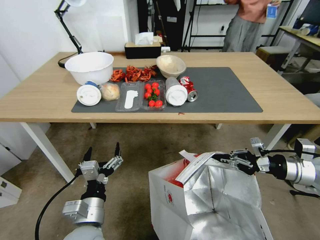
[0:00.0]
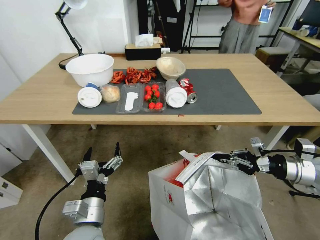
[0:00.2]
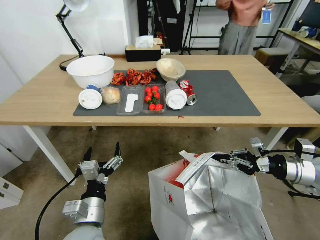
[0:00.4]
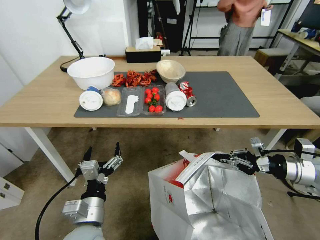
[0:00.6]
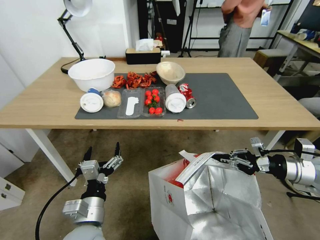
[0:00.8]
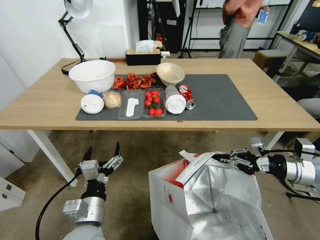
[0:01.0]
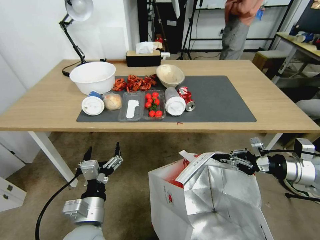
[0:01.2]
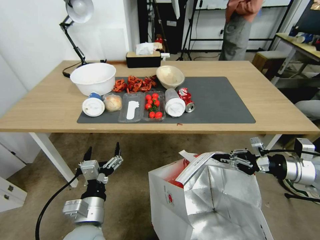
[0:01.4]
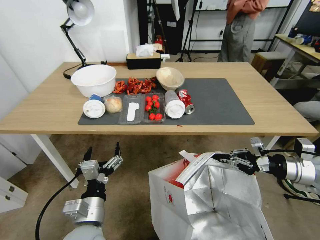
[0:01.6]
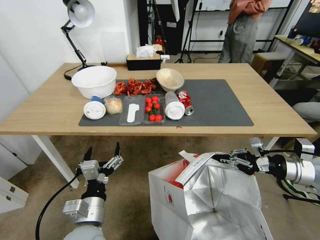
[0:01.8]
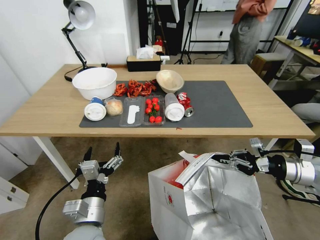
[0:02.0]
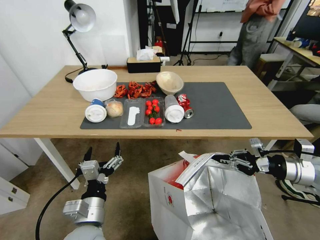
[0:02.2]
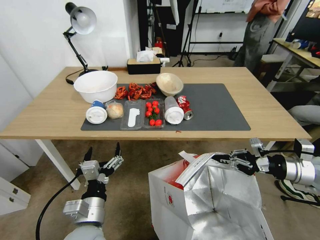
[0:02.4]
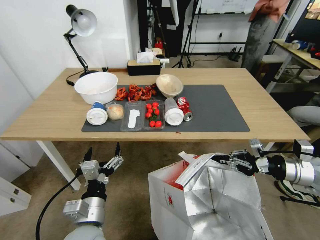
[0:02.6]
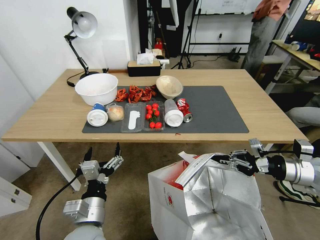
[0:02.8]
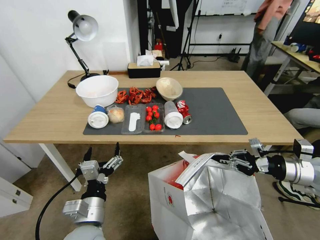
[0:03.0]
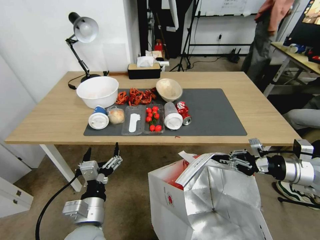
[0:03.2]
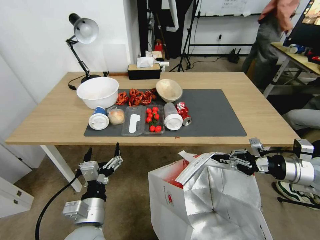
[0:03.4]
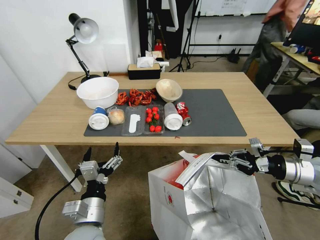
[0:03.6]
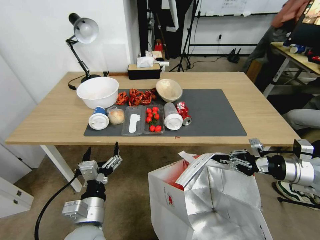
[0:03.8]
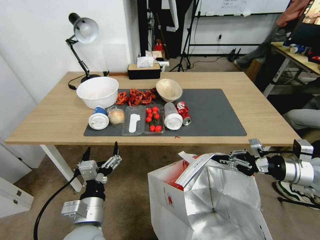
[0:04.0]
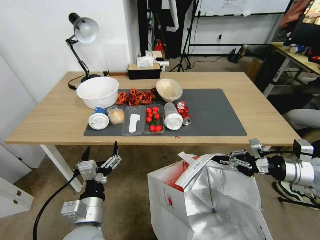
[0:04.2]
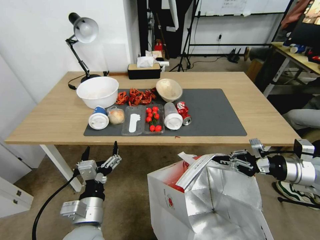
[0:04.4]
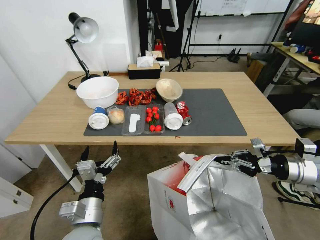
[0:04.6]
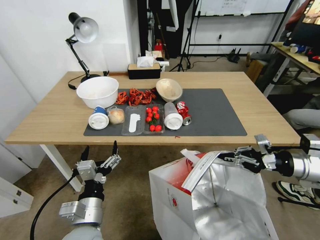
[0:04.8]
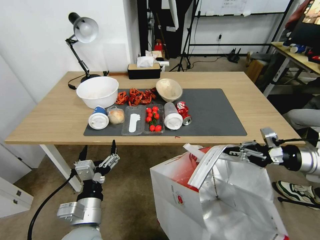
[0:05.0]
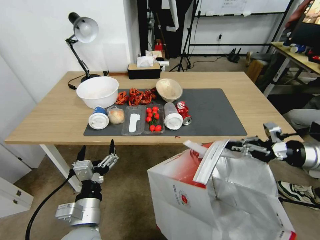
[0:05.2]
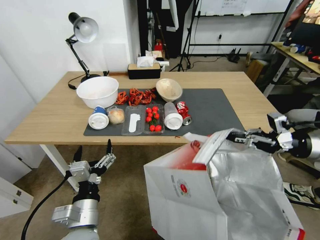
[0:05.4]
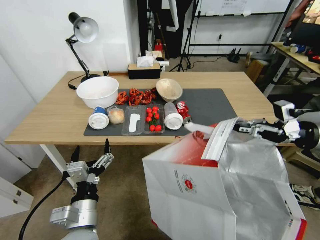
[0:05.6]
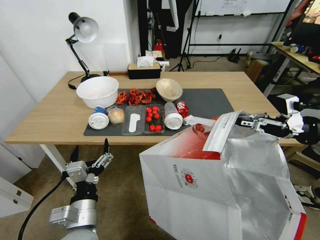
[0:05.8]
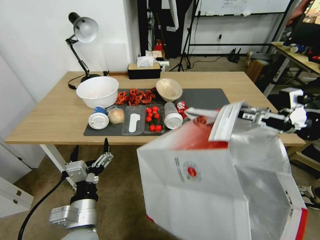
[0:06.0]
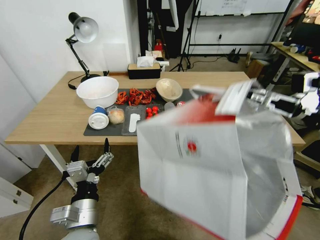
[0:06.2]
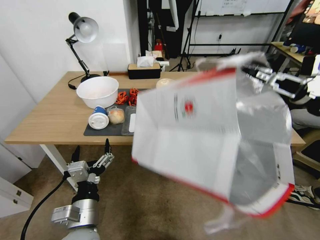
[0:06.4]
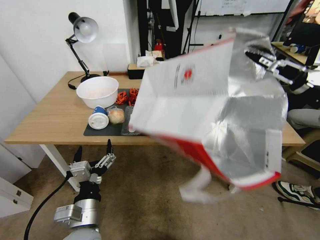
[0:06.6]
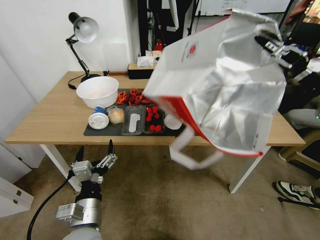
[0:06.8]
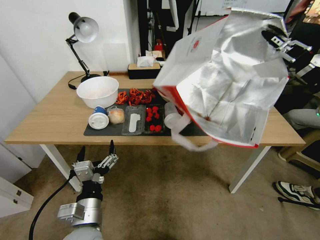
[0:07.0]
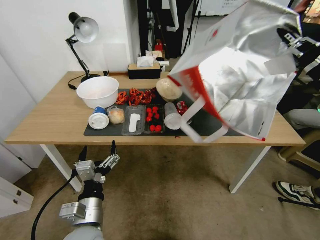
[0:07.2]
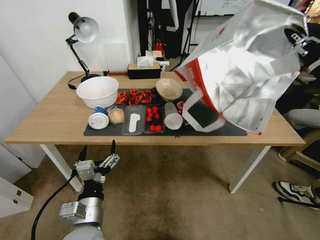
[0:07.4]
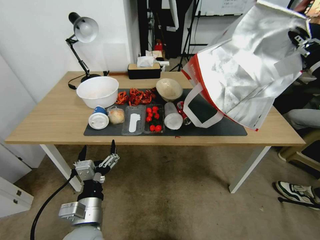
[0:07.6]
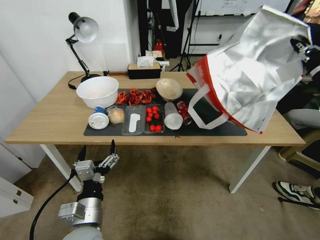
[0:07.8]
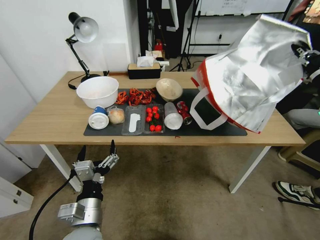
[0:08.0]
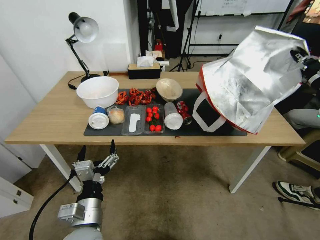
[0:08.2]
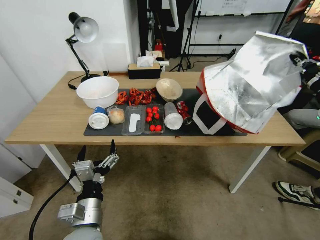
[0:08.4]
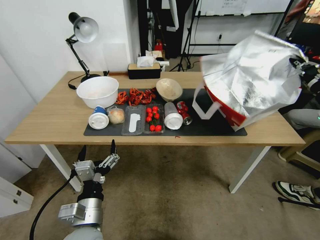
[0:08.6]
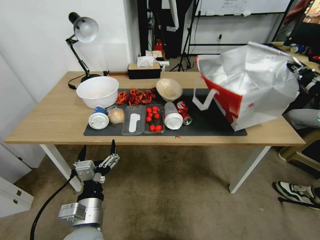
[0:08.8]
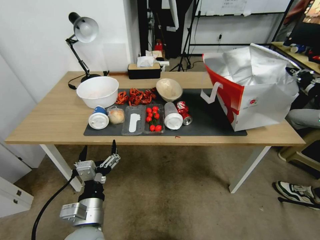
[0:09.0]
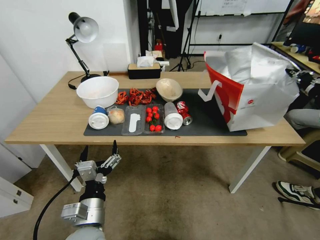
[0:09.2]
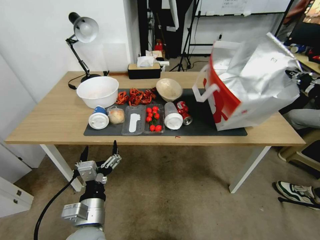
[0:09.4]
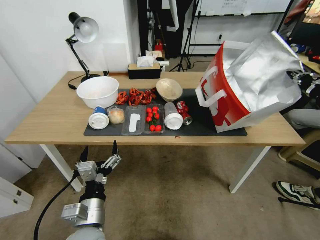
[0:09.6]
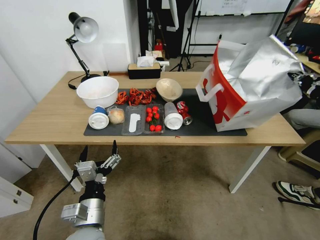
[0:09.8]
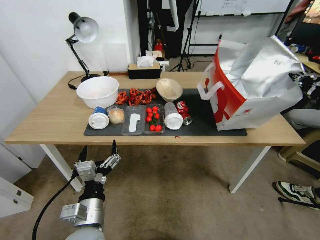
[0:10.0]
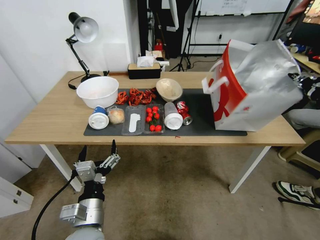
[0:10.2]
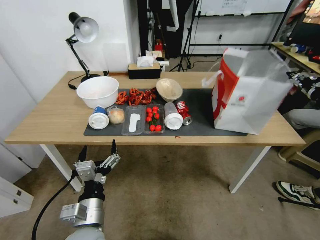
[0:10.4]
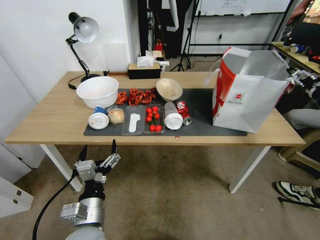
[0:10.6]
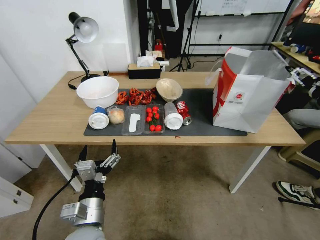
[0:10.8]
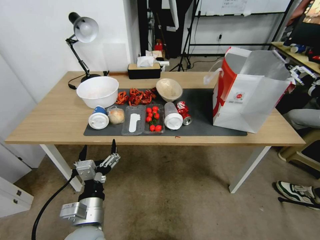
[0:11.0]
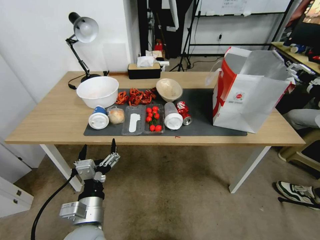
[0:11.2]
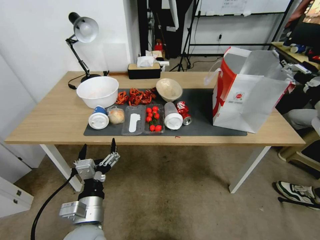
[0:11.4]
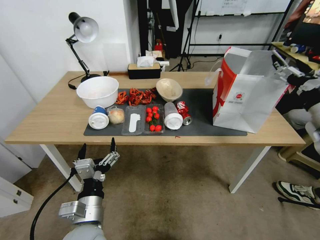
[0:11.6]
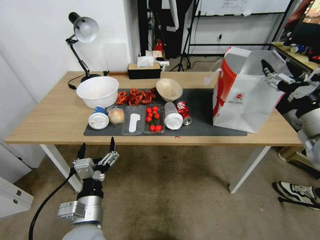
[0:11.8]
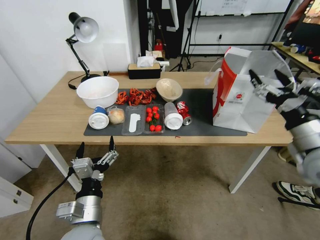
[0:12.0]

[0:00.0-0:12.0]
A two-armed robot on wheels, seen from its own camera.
Task of the whole recording: Pick up the food delivery bag from the floor and place it on the table.
0:03.0 to 0:04.4: Both grippers stay about where they are.
0:04.4 to 0:06.0: The right gripper moves upward, approximately 10 cm.
0:06.0 to 0:07.6: The right gripper goes roughly 5 cm upward.
0:09.0 to 0:10.4: The right gripper opens up.
0:10.4 to 0:12.0: The right gripper goes approximately 15 cm to the left, backward and downward, and opens.

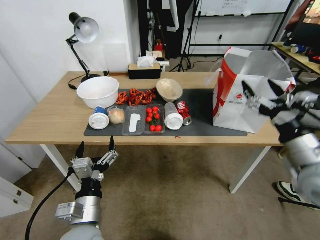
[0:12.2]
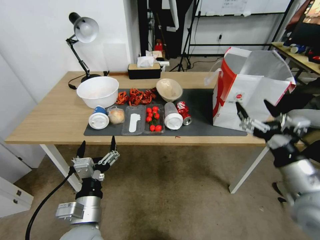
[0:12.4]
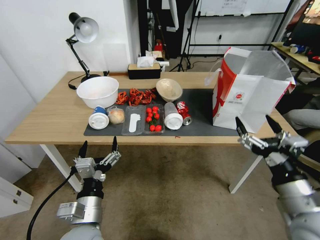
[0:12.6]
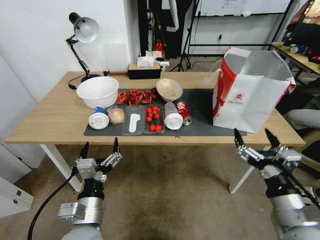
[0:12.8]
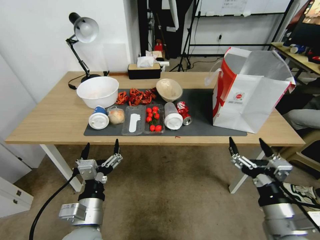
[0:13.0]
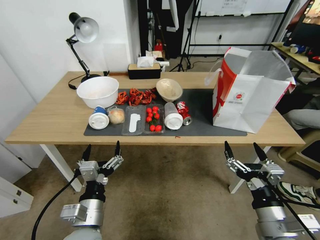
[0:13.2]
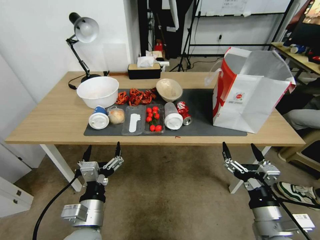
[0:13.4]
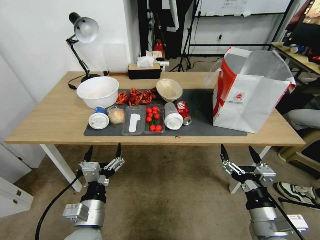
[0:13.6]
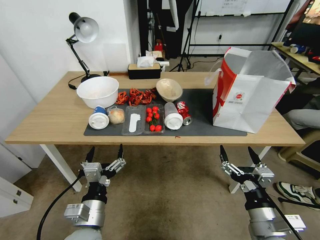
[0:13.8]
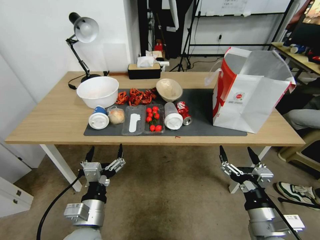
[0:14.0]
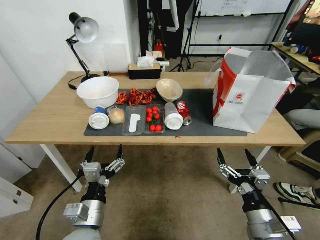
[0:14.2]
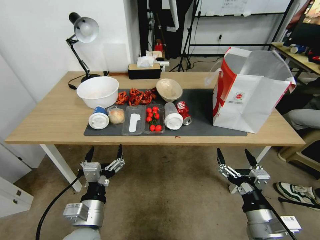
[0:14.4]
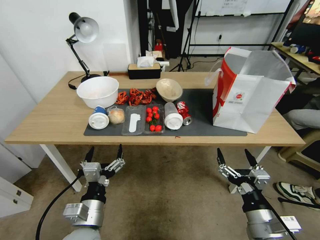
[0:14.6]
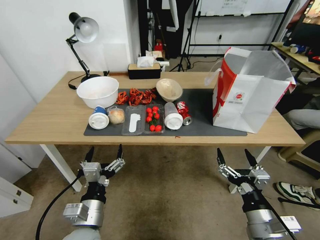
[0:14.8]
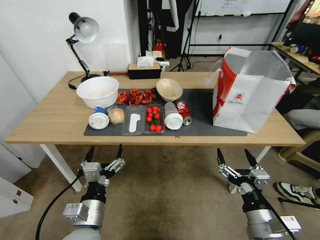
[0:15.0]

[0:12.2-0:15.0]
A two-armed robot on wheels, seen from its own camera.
Task of the whole recording: Pick up the food delivery bag from the floor and place it on the table.
0:12.2 to 0:13.6: The right gripper is displaced downward, backward and to the left by some 20 cm.
0:13.6 to 0:15.0: Both grippers stay put.
